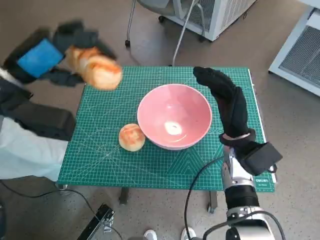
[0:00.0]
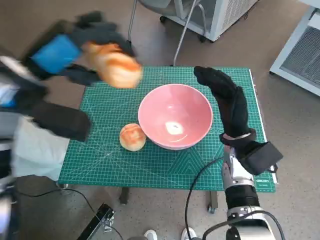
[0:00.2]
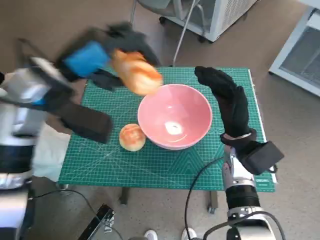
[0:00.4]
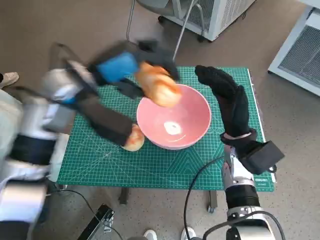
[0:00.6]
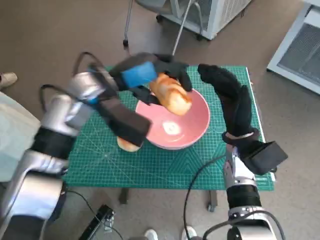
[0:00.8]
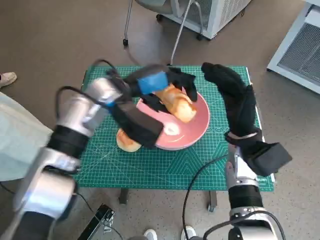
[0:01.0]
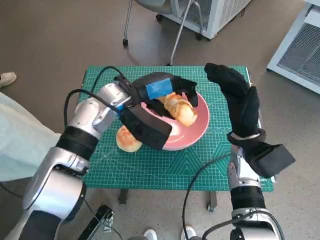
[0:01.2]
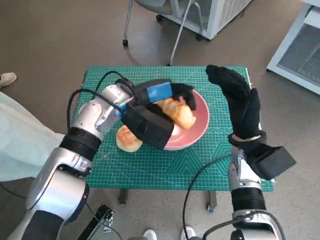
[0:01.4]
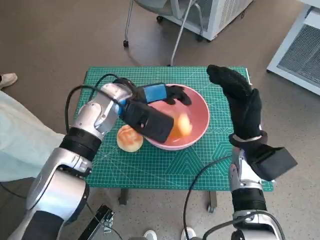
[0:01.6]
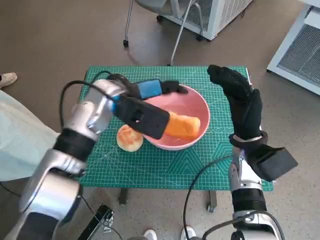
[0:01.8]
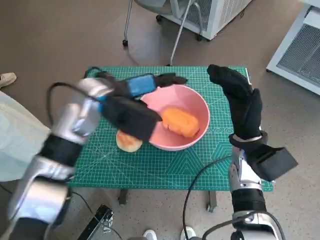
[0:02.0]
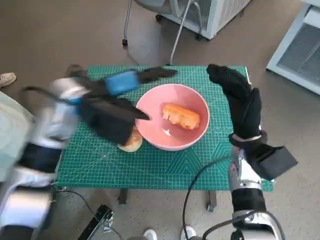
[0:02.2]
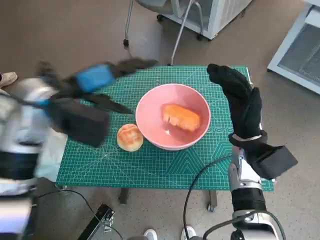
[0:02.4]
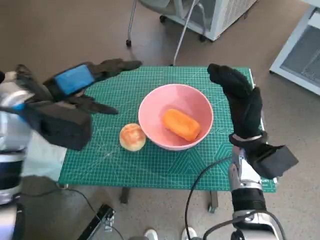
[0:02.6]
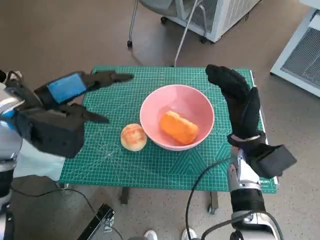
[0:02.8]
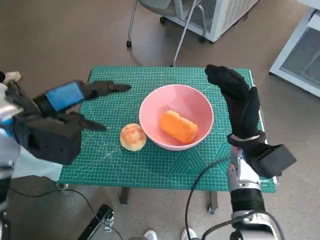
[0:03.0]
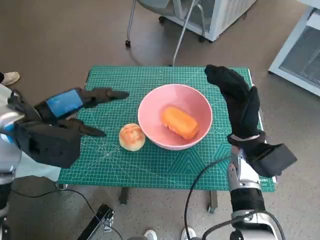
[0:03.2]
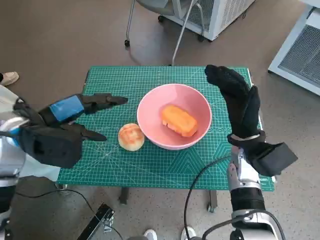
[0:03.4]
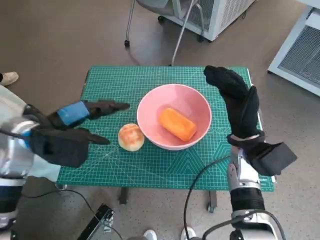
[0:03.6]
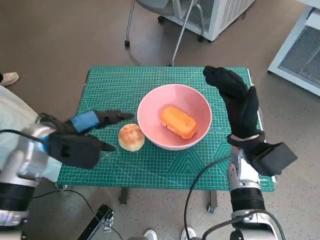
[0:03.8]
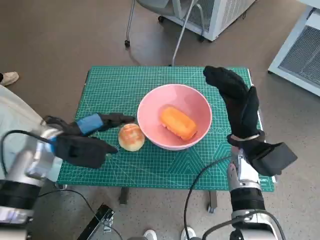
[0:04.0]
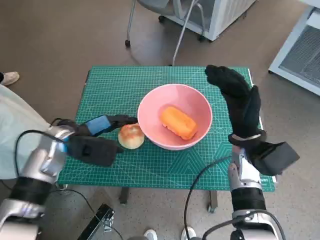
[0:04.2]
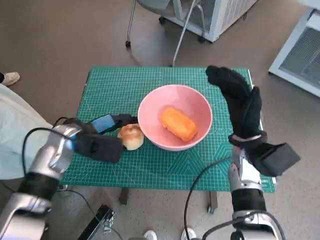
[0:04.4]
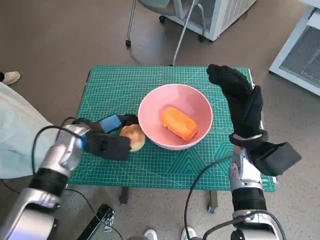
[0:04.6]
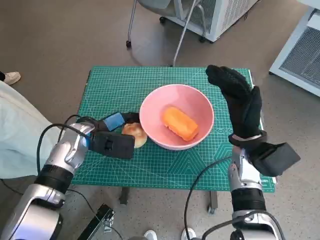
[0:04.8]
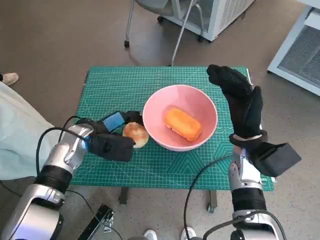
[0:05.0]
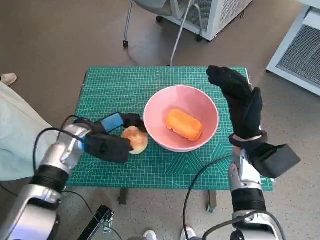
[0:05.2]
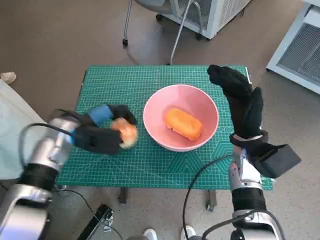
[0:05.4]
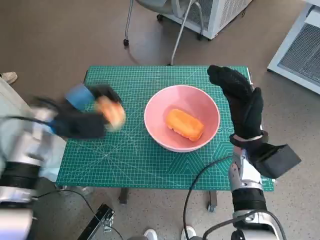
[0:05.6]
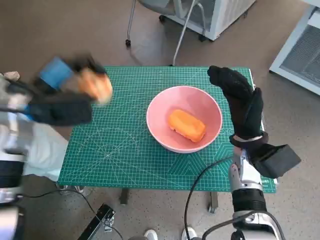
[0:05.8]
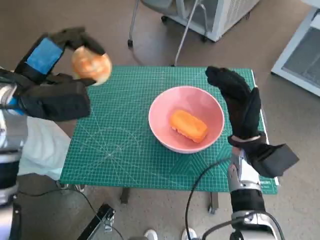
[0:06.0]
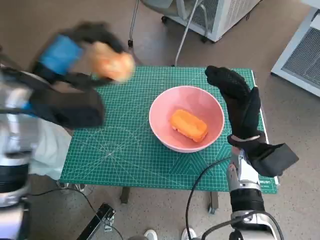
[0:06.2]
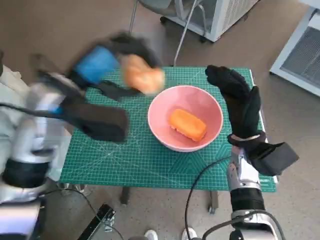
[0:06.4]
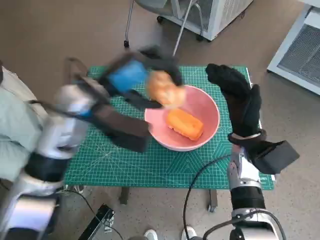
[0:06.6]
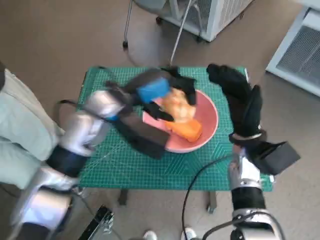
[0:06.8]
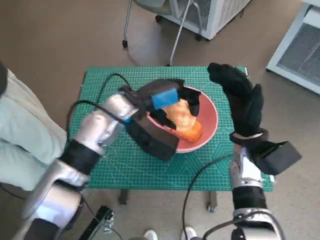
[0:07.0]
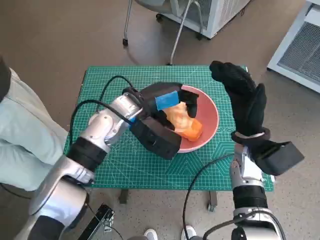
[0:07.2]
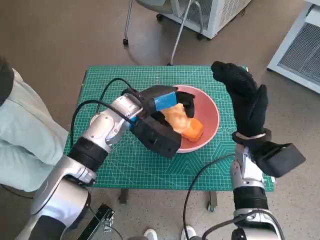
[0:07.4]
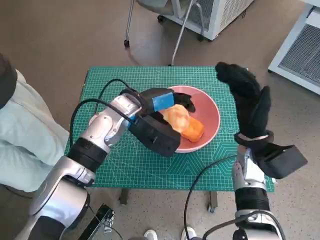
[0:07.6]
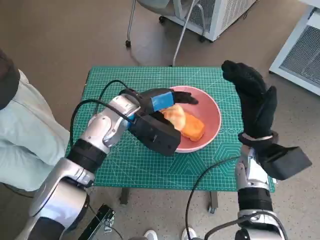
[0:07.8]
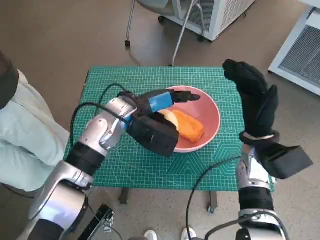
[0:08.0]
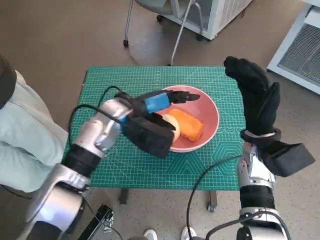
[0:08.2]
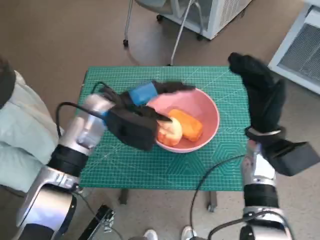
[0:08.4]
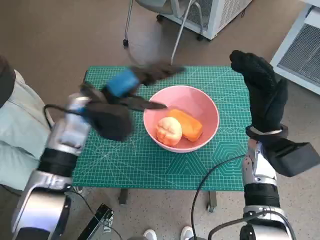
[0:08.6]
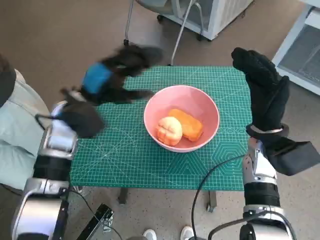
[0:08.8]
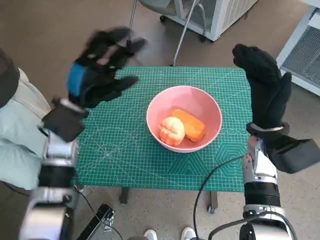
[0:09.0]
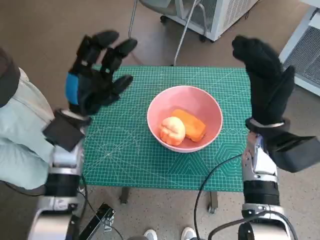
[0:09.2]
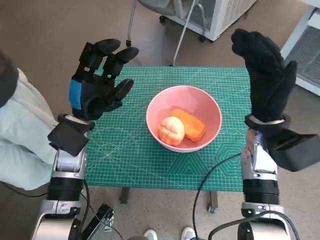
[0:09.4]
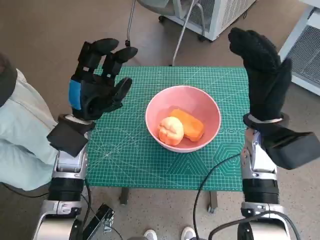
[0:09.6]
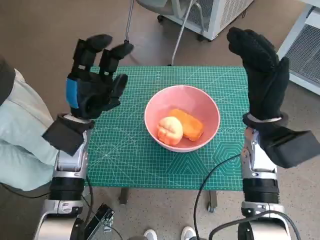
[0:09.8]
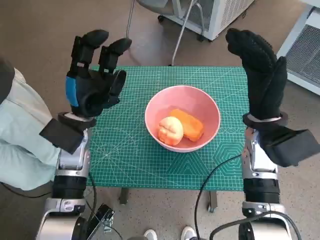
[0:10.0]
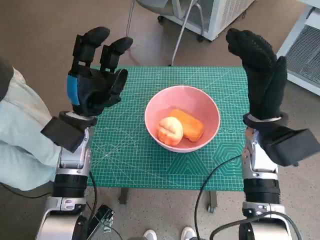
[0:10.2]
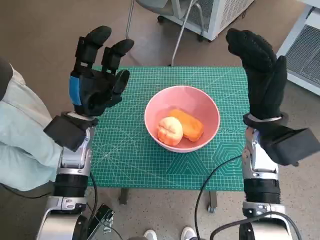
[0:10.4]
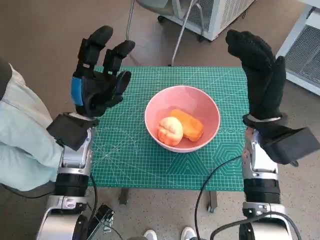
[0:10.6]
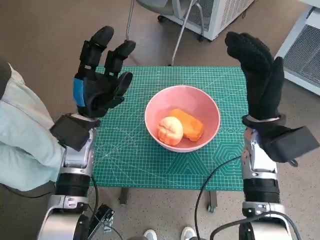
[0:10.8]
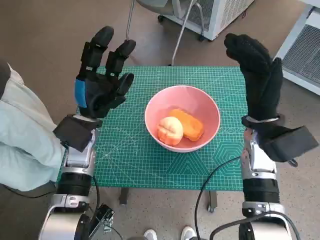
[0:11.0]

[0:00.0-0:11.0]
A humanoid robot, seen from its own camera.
Task of the whole recording: Push the bowl to the center of the table and put the bread into the bowl.
Step, 0:00.0 to 0:02.0: Place the long bread in pink bowl with left hand.
Step, 0:02.2 to 0:04.6: Grasp the round bread with left hand.
Step, 0:04.8 to 0:07.8: Place the round bread in pink bowl with left hand.
0:00.0 to 0:01.6: The left hand moves to the right, downward and forward, approximately 20 cm.
0:01.6 to 0:03.2: The left hand is displaced to the left and backward by about 15 cm.
0:03.2 to 0:04.8: The left hand shifts some 15 cm downward and forward.
0:04.8 to 0:06.2: The left hand moves upward, about 15 cm.
0:06.2 to 0:07.8: The left hand travels to the right, downward and forward by approximately 15 cm.
0:07.8 to 0:09.4: The left hand heads to the left, covering some 10 cm.
0:09.4 to 0:11.0: There are only small adjustments of the hands.

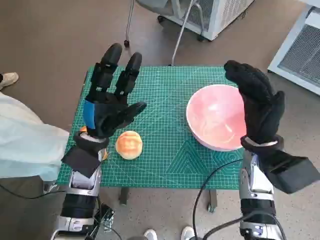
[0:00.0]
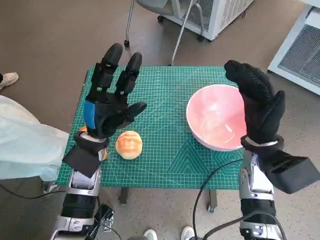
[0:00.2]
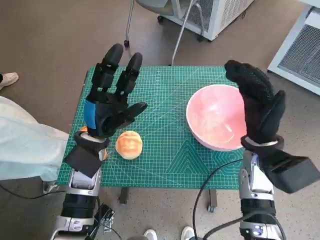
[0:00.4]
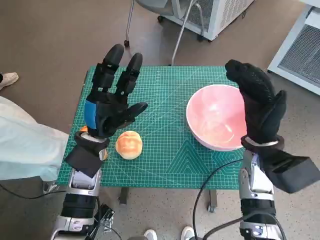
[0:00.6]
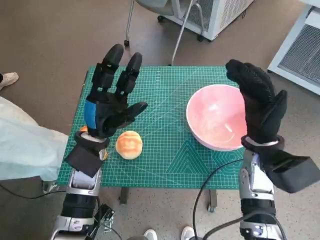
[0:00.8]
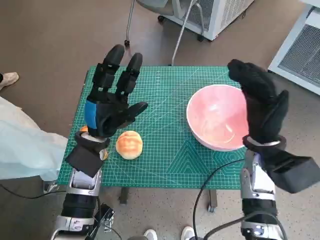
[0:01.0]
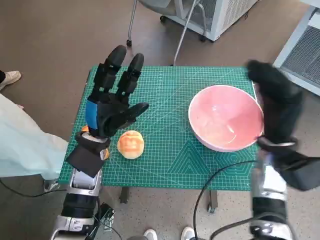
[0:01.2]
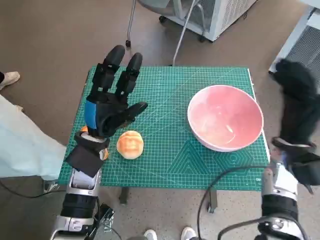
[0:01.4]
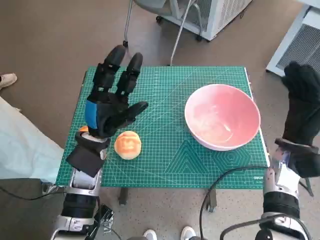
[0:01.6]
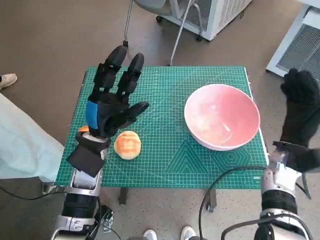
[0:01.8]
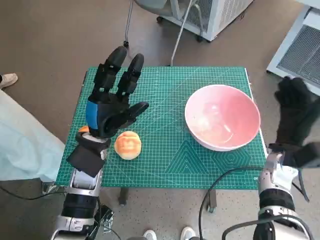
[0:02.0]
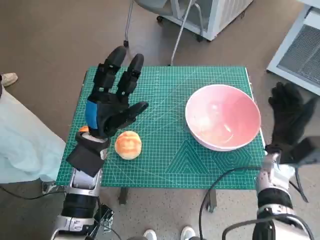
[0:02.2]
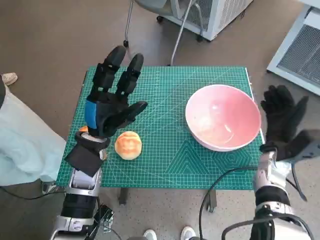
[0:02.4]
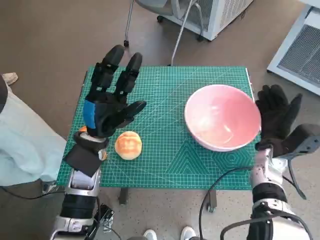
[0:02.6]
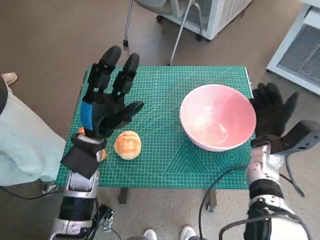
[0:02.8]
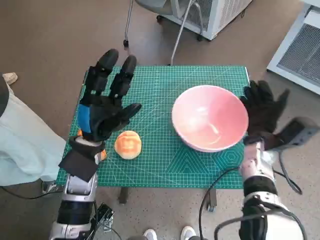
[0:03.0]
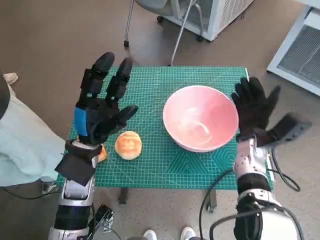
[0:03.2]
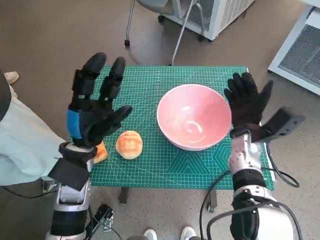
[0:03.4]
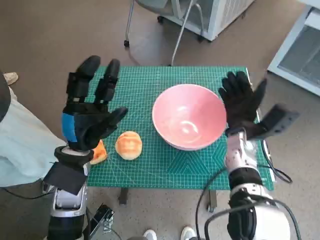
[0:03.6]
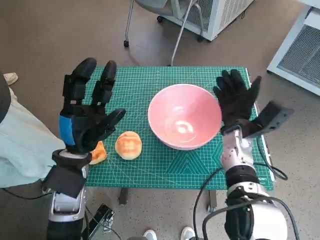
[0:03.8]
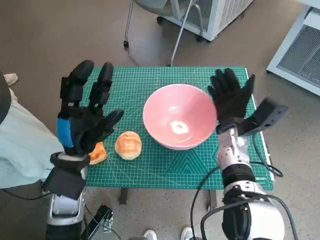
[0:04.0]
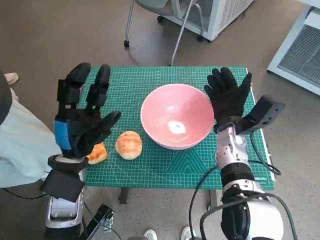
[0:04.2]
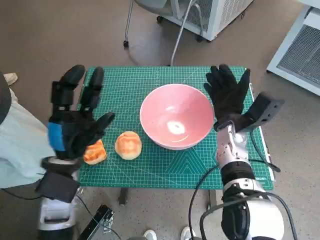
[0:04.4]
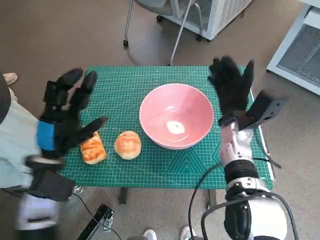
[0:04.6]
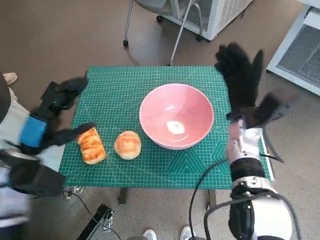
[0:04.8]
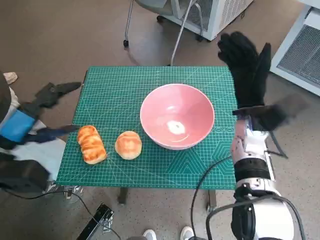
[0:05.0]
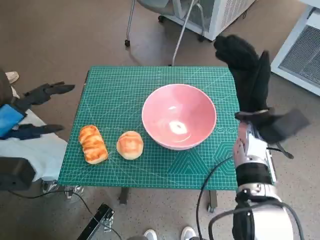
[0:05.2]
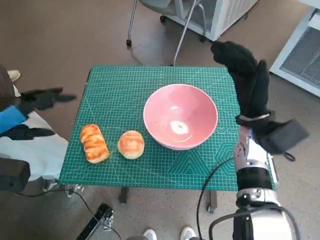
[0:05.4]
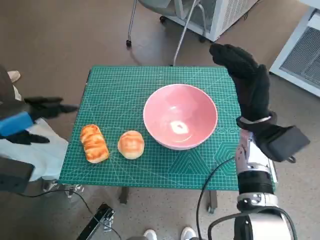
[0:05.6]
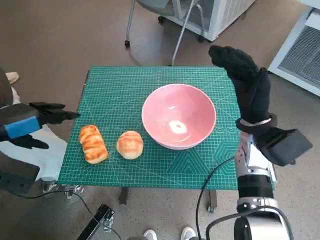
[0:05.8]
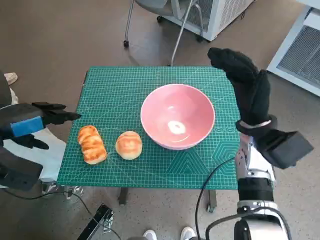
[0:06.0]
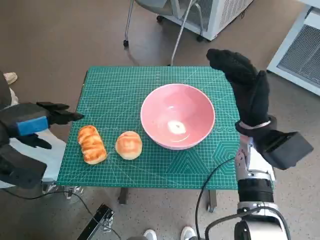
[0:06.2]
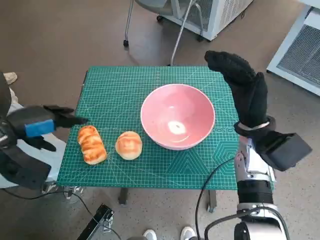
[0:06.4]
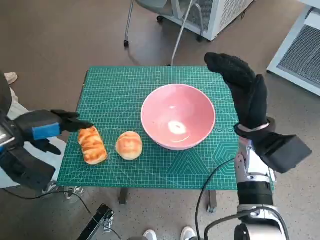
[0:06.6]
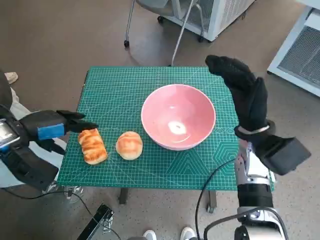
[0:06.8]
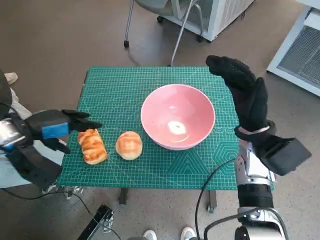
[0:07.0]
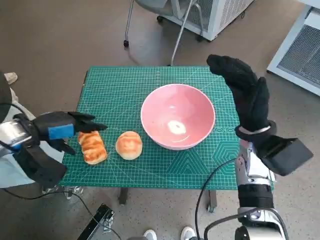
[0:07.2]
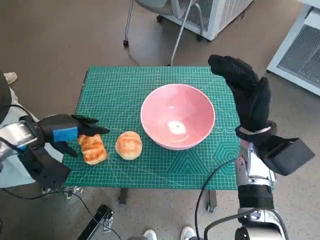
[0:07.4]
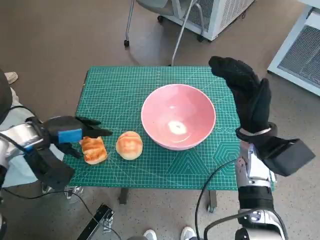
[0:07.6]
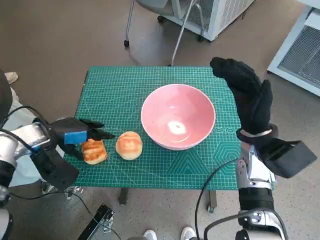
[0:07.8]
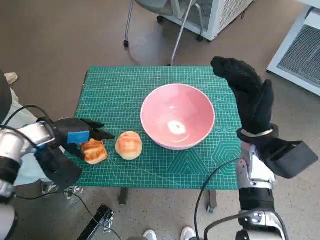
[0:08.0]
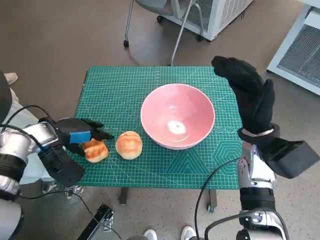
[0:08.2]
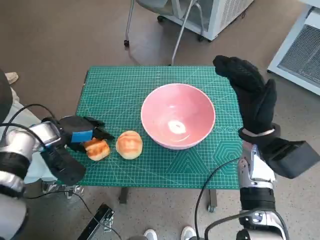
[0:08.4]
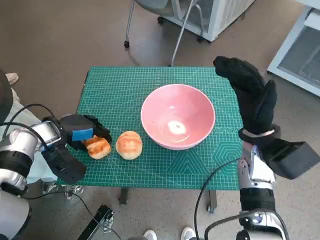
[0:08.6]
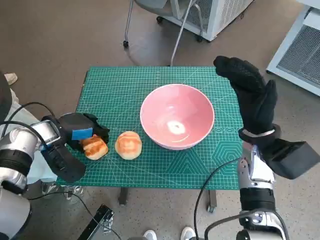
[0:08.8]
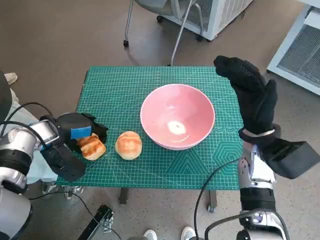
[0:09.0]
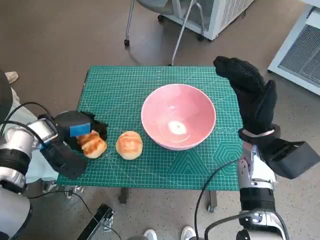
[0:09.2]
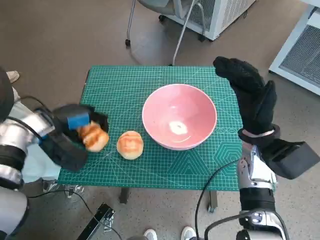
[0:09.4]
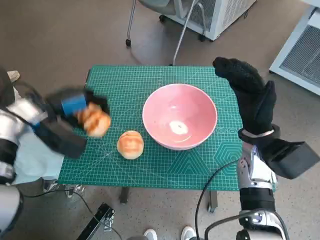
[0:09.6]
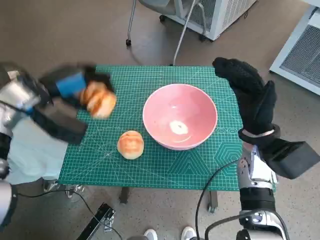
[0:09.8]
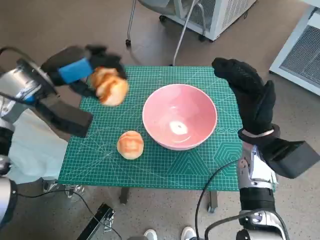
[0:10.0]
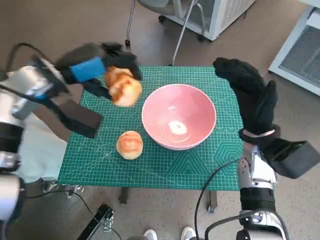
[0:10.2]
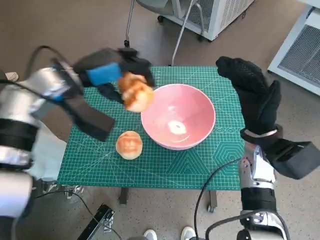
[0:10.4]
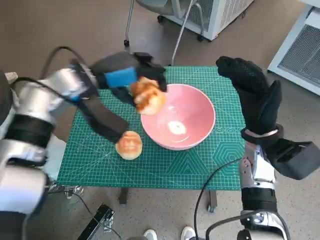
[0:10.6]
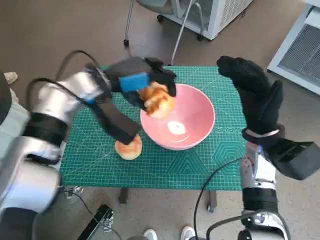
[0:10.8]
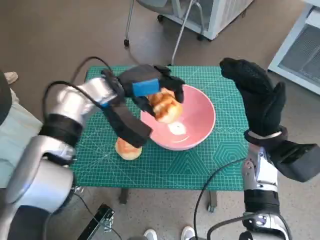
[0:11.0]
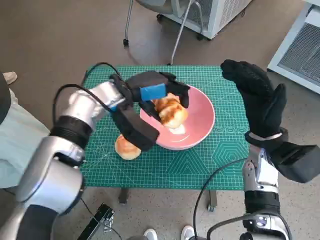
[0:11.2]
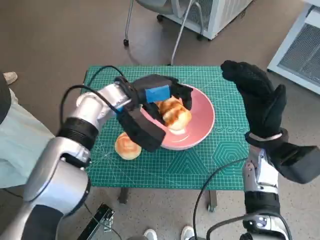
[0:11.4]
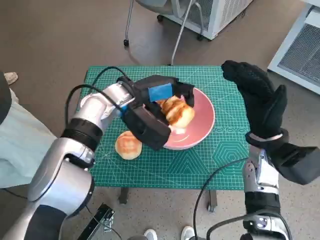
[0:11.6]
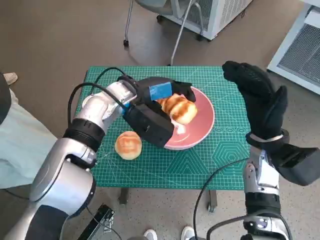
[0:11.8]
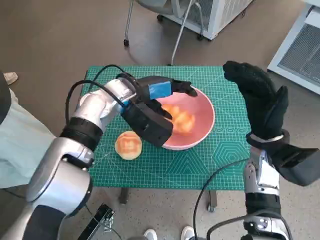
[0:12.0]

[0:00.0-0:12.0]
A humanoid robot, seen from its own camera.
Task of the whole recording: Push the bowl to the center of the table and put the bread into the bowl.
Step, 0:00.0 to 0:04.6: Move the pink bowl to the center of table with right hand.
Step, 0:04.8 to 0:08.6: Grasp the long bread with left hand.
0:01.6 to 0:03.0: The right hand ends up some 5 cm from where it was.
0:03.0 to 0:04.4: The left hand moves some 5 cm; the right hand is displaced to the left by approximately 5 cm.
0:04.4 to 0:06.0: The left hand is displaced to the left and upward by roughly 15 cm, while the right hand heads upward, covering about 5 cm.
0:06.0 to 0:07.6: The left hand heads downward, covering some 5 cm.
0:07.6 to 0:09.0: The hands move only a little.
0:09.0 to 0:10.4: The left hand heads upward and to the right, covering roughly 15 cm.
0:10.4 to 0:12.0: The left hand shifts about 10 cm to the right.
